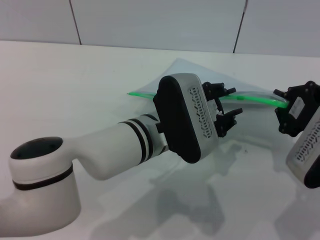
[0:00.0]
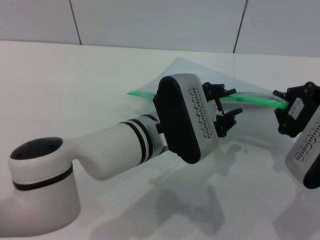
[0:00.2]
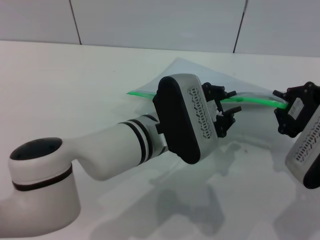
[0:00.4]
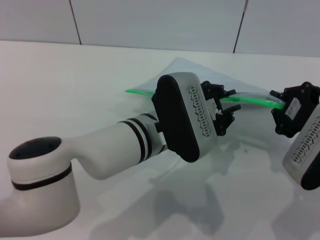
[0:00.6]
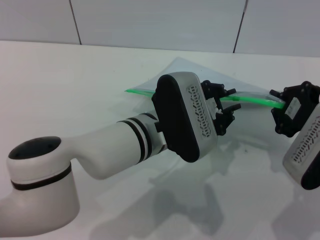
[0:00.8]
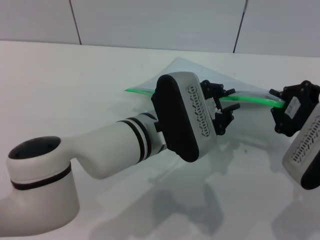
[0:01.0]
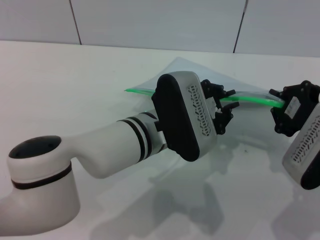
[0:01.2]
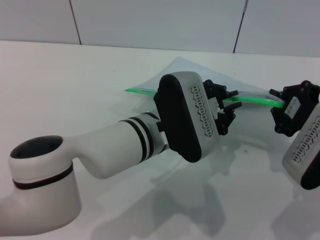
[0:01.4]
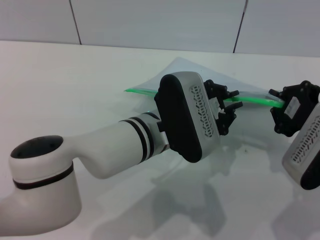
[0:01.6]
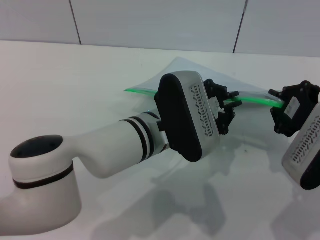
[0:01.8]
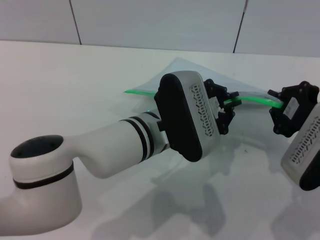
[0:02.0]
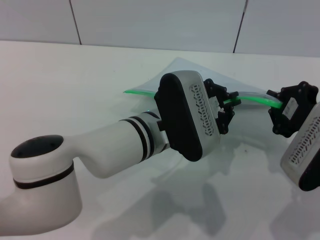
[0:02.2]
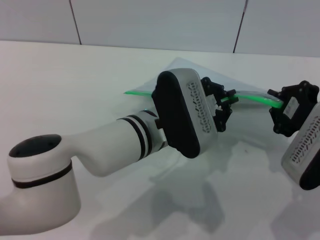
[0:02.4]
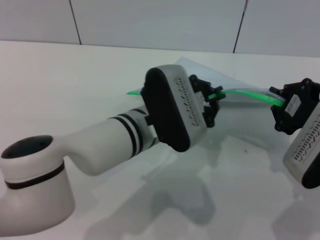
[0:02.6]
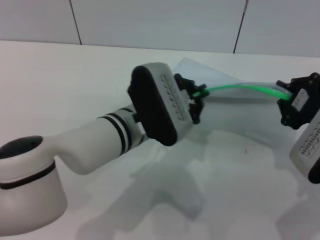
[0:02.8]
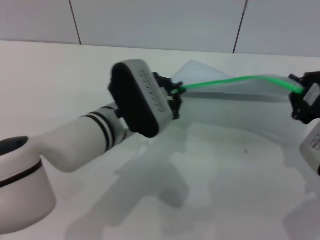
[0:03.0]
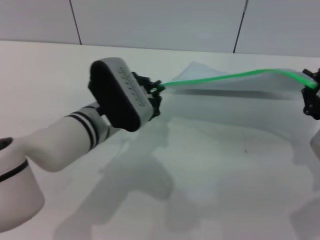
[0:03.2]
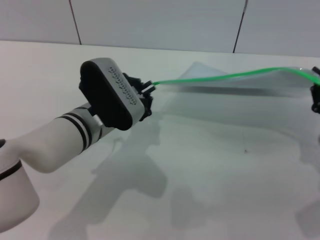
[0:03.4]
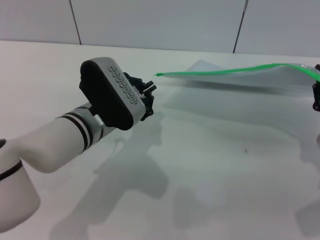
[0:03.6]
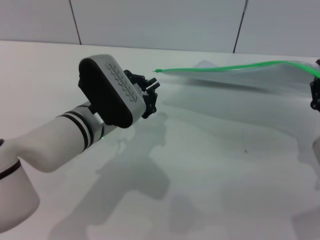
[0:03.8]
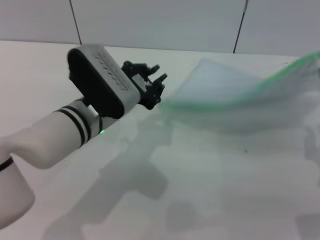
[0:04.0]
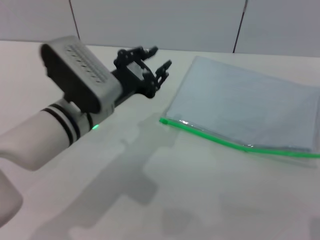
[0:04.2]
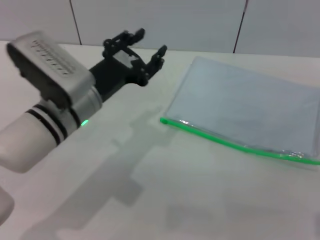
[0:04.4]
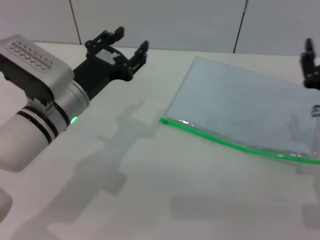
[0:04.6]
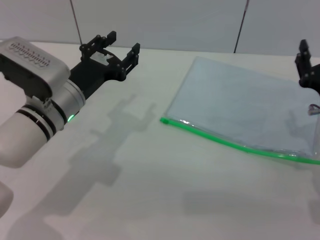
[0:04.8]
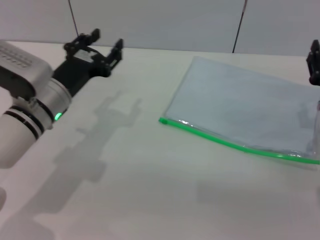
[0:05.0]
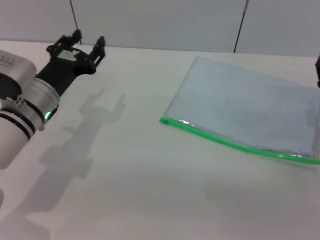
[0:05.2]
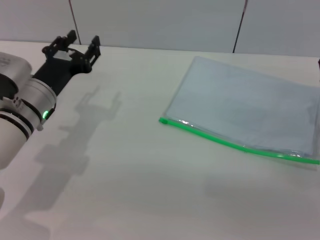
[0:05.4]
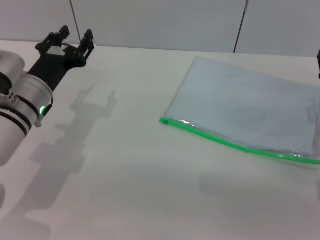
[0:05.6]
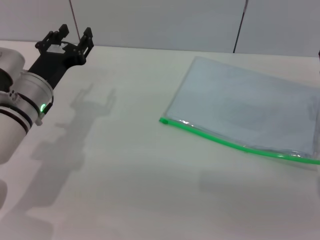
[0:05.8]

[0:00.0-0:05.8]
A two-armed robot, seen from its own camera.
Step, 0:00.0 to 0:04.0: Pulling up the zipper on the transparent plastic bag with the left gripper to close it.
Step, 0:04.2 to 0:05.0: Place the transparent plastic bag.
0:00.0 to 0:01.4: The left gripper closes up.
0:02.8 to 0:04.4: The right gripper opens up. The left gripper heads to the left, covering some 10 cm, and opens.
0:04.4 to 0:05.8: The right gripper shifts some 10 cm forward and downward. The left gripper shifts roughly 10 cm to the left, and opens up.
